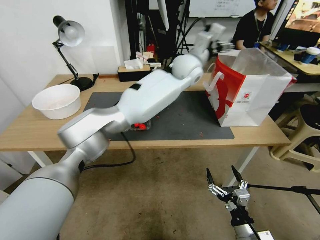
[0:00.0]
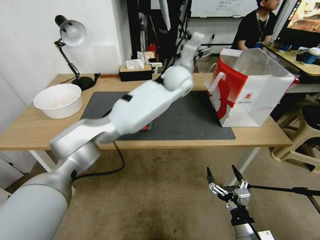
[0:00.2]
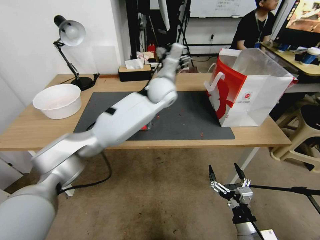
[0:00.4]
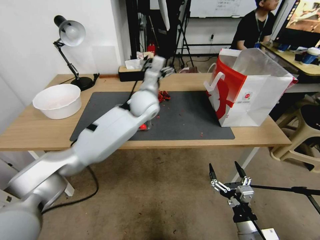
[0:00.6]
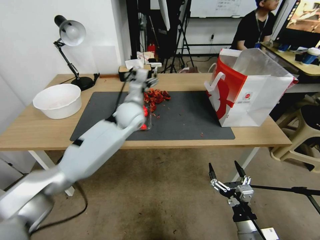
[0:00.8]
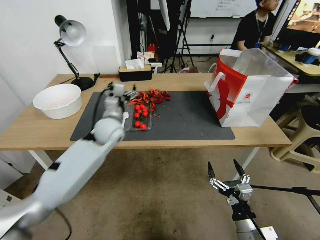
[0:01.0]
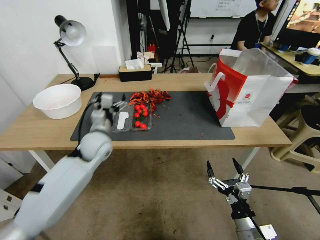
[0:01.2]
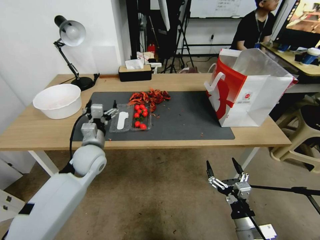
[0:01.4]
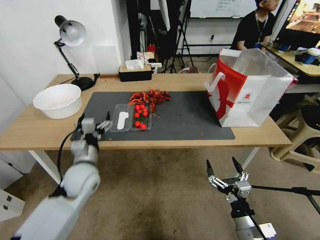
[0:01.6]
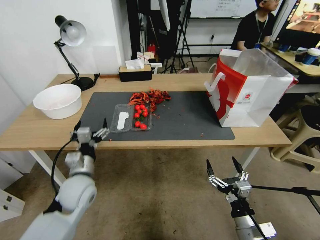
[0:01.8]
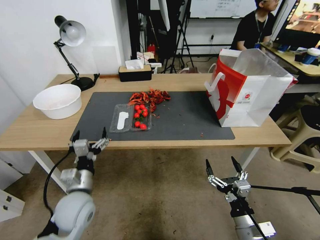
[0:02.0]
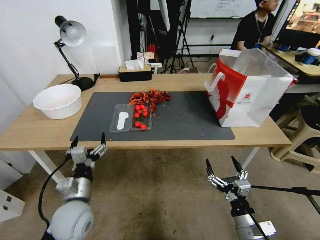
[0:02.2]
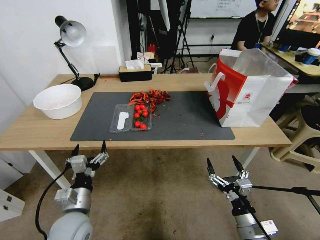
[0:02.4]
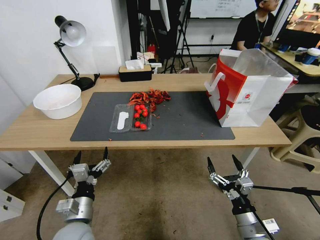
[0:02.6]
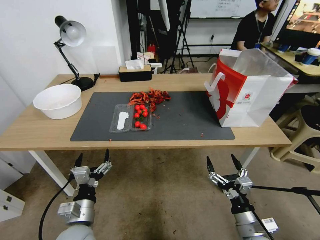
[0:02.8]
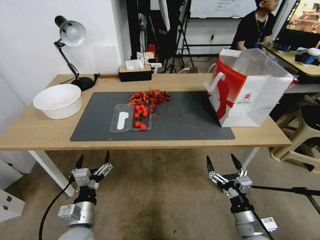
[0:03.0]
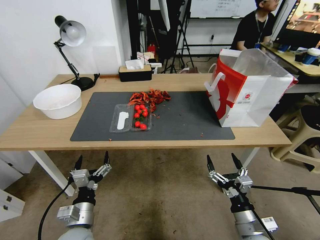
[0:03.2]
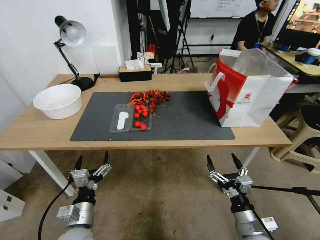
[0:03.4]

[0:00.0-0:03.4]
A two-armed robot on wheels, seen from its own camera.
0.0 to 1.6 s: The left gripper heads to the left, backward and downward, covering some 50 cm.
1.6 to 3.4 s: The left gripper is displaced backward and downward by about 20 cm.

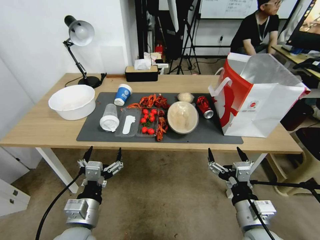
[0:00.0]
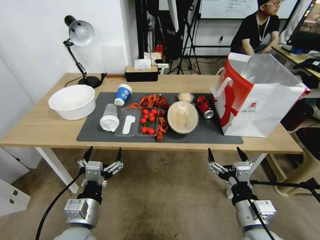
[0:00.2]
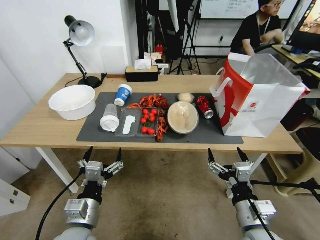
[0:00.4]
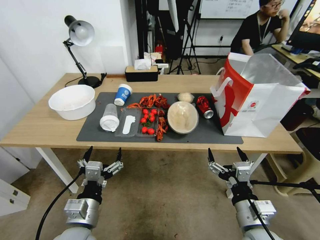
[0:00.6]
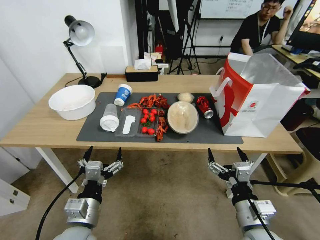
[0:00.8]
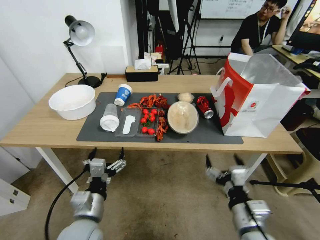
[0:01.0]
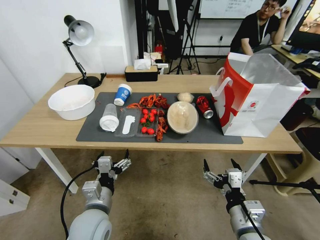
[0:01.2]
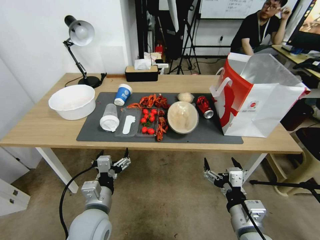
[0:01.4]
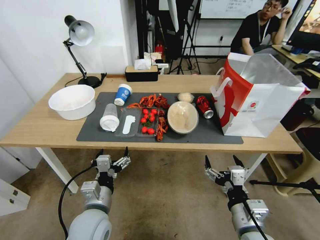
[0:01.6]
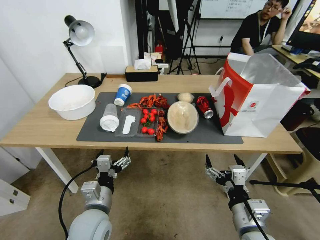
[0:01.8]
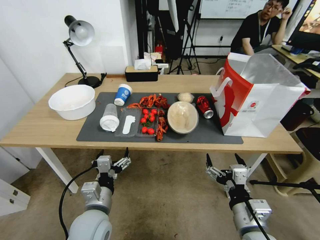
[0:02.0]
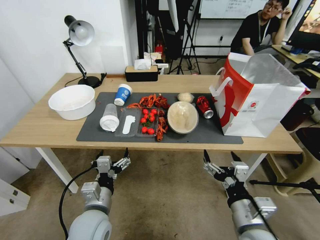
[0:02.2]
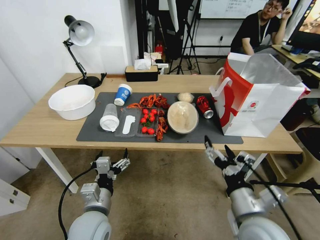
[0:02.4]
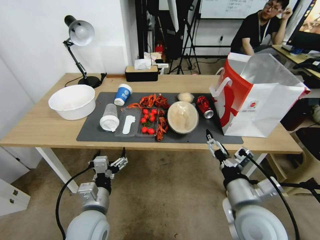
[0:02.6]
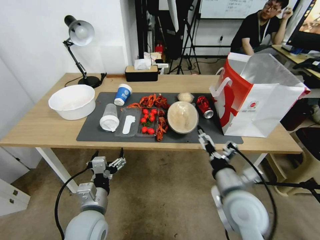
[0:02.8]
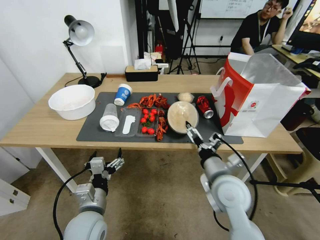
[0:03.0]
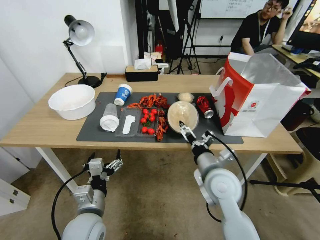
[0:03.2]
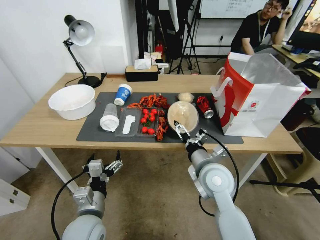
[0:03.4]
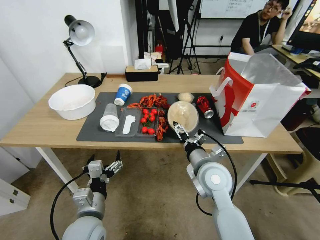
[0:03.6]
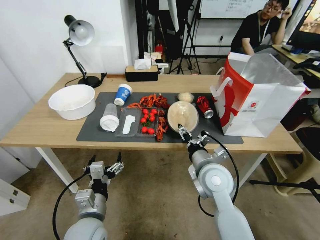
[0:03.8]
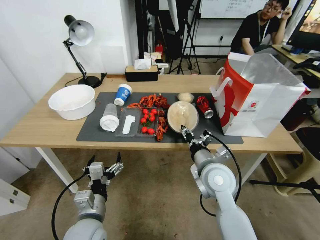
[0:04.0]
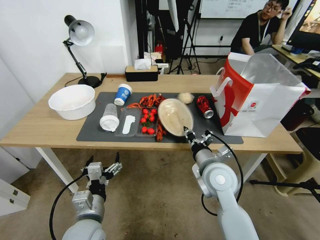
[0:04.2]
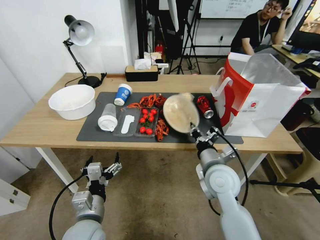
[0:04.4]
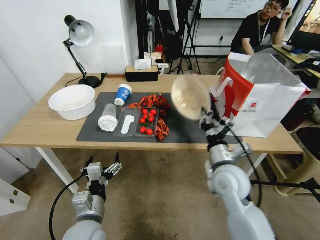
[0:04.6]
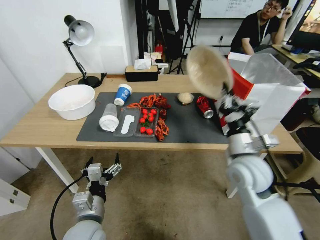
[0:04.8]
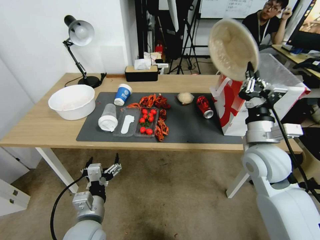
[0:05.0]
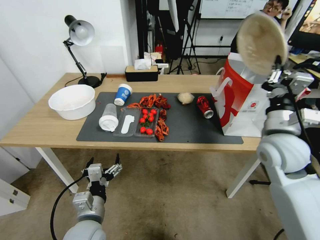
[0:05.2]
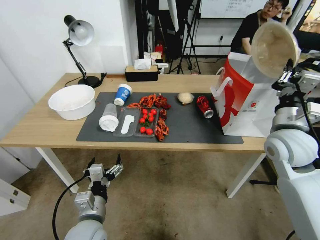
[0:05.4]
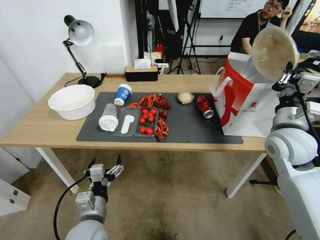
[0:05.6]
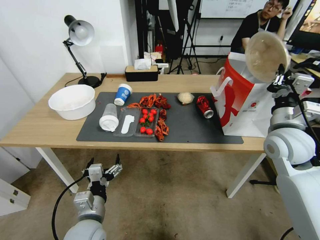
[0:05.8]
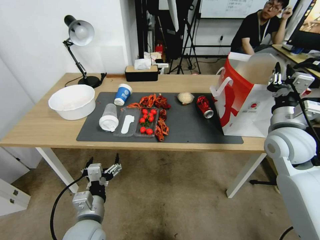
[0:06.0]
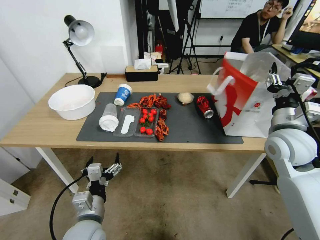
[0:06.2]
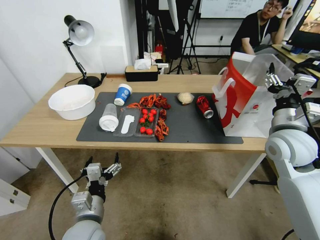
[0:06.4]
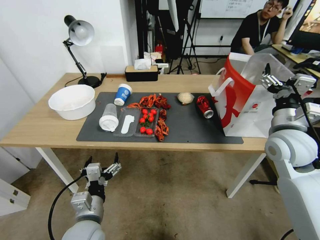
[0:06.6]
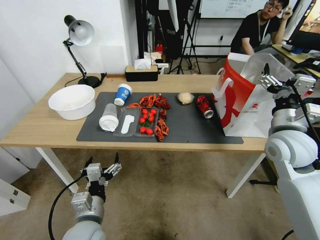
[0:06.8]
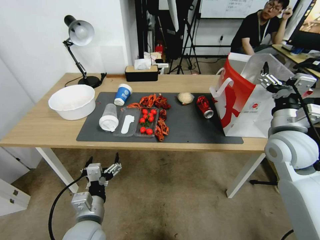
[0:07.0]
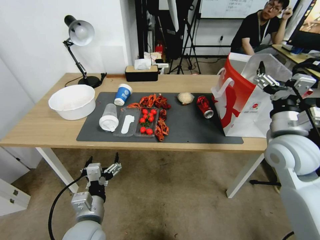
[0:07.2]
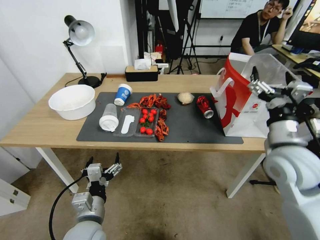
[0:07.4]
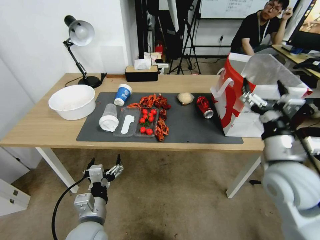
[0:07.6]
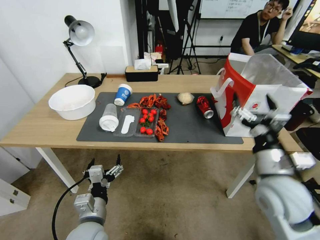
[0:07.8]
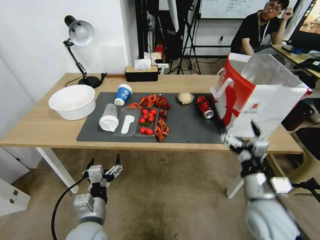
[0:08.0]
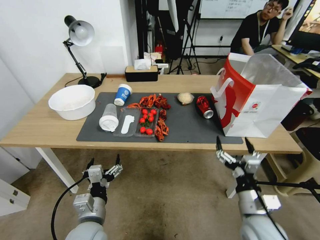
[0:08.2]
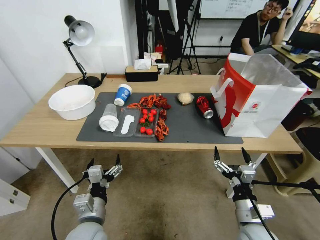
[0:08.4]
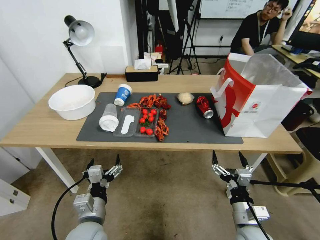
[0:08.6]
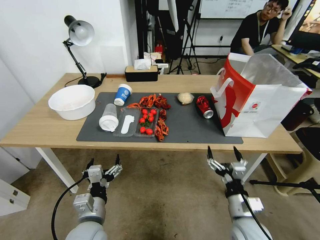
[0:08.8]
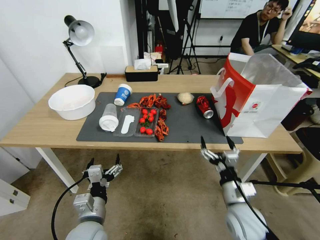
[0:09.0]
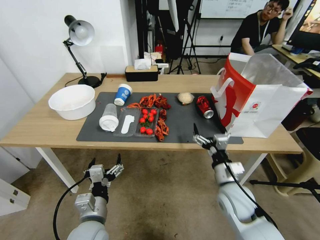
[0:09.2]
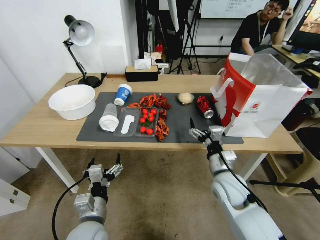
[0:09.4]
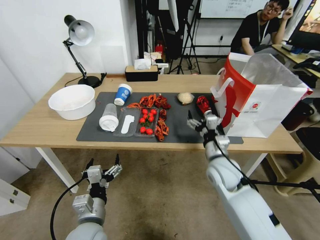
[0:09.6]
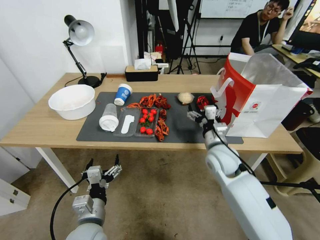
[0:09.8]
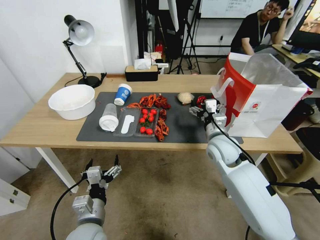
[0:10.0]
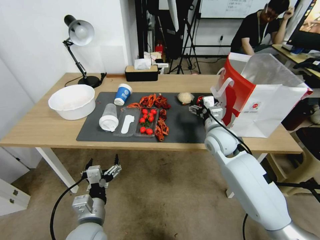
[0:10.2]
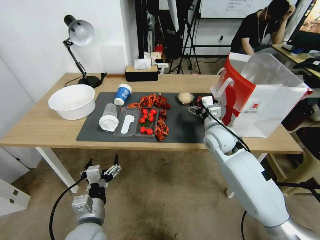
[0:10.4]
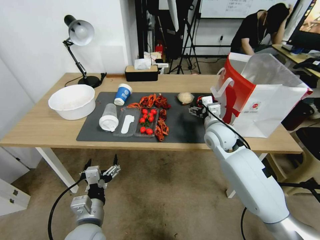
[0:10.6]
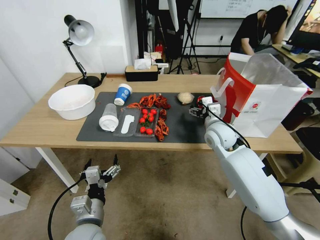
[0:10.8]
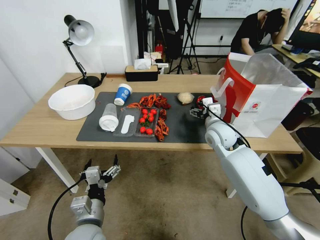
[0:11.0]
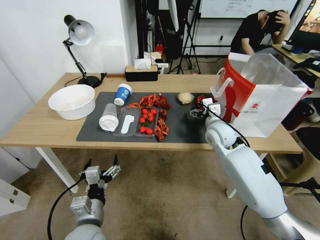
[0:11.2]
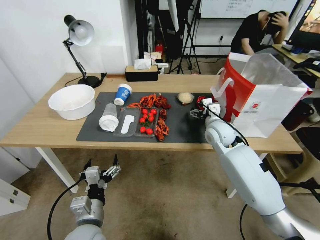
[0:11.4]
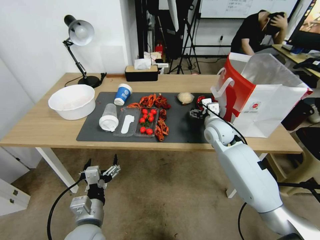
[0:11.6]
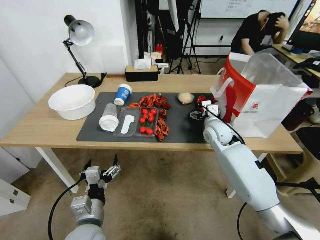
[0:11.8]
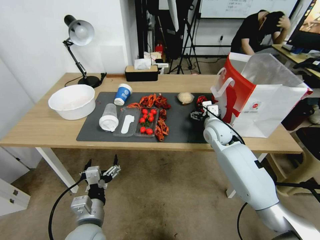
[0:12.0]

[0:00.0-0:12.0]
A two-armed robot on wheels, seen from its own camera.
1.6 to 3.0 s: The right gripper moves forward, approximately 10 cm.
3.0 to 4.4 s: The right gripper closes up.
4.4 to 6.0 s: The right gripper goes roughly 20 cm to the right and upward.
6.0 to 7.6 s: The right gripper shifts some 5 cm backward, and opens its fingers.
7.6 to 9.0 s: The right gripper heads downward, covering some 20 cm.
9.0 to 10.4 s: The right gripper moves forward and upward, roughly 25 cm.
10.4 to 12.0 s: The right gripper moves forward, approximately 5 cm.

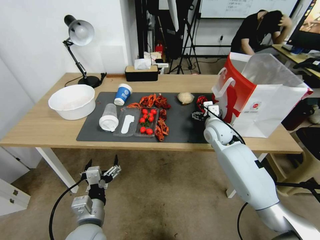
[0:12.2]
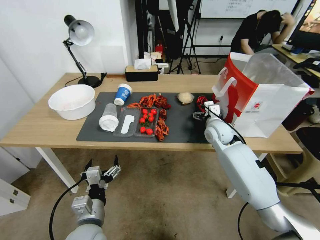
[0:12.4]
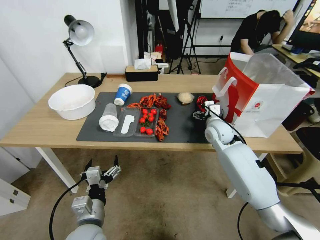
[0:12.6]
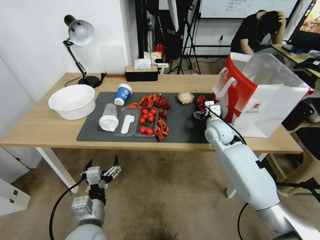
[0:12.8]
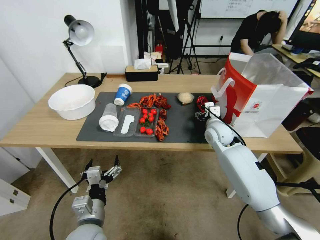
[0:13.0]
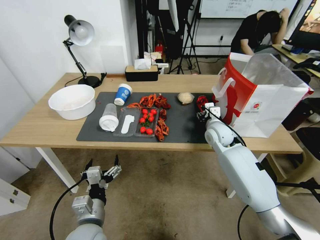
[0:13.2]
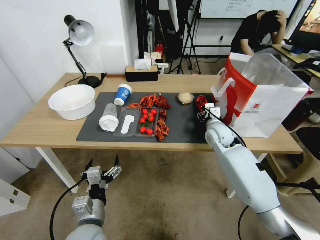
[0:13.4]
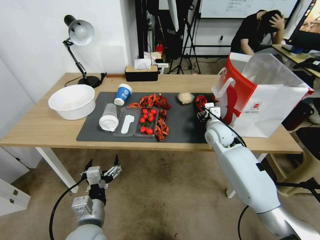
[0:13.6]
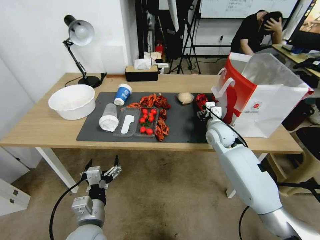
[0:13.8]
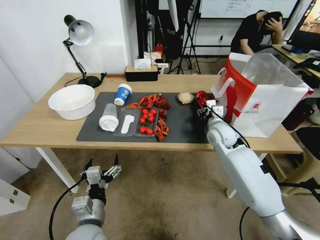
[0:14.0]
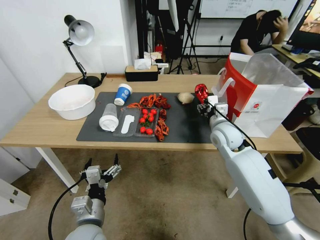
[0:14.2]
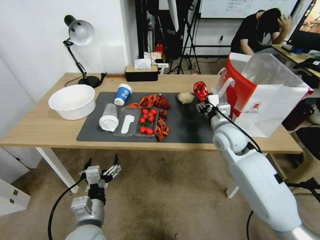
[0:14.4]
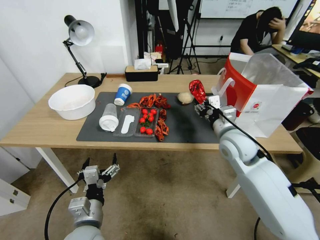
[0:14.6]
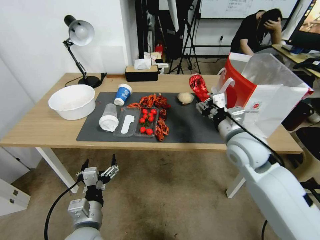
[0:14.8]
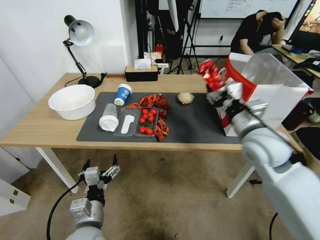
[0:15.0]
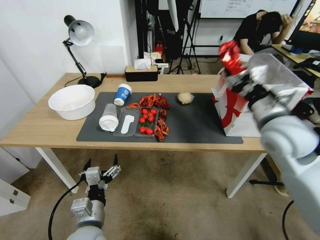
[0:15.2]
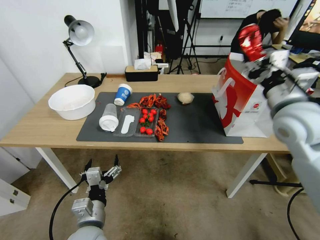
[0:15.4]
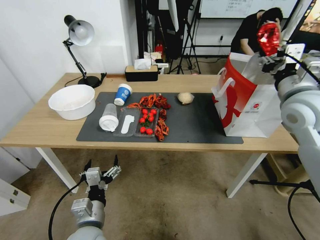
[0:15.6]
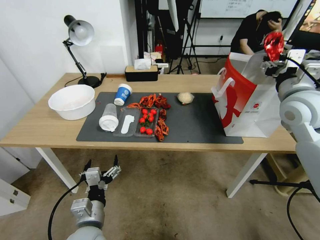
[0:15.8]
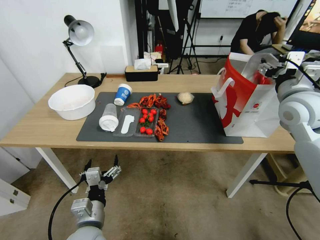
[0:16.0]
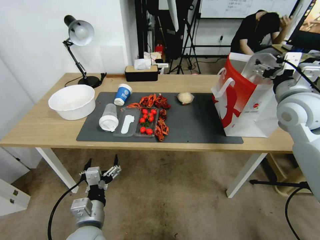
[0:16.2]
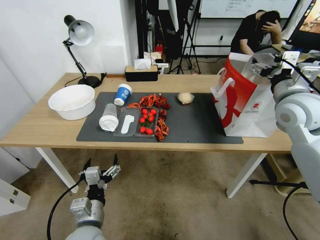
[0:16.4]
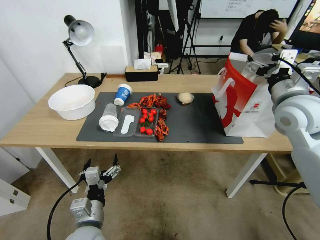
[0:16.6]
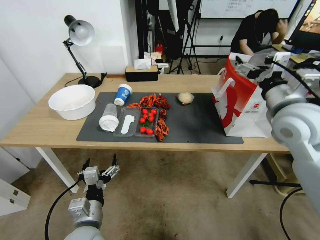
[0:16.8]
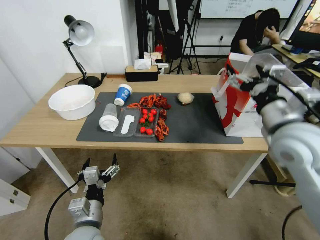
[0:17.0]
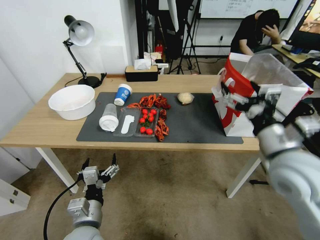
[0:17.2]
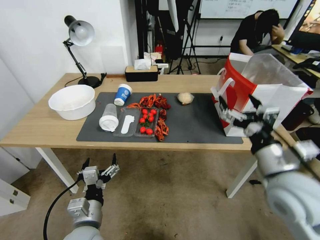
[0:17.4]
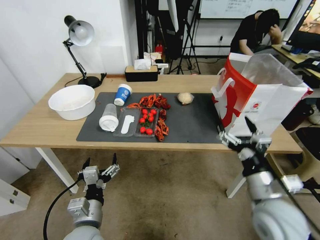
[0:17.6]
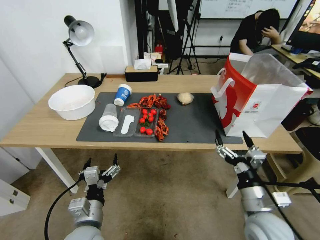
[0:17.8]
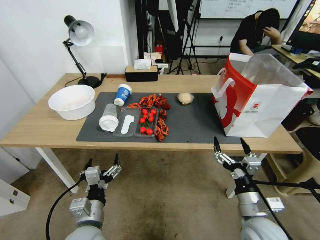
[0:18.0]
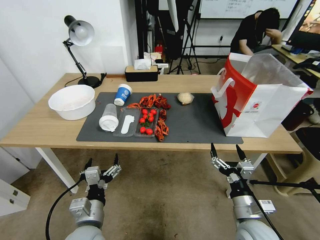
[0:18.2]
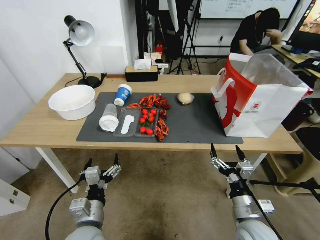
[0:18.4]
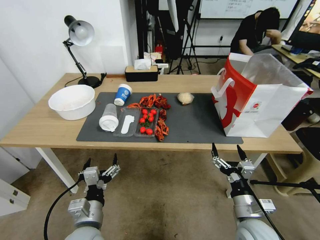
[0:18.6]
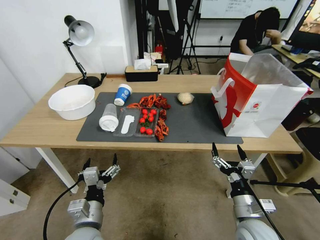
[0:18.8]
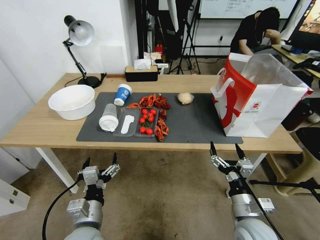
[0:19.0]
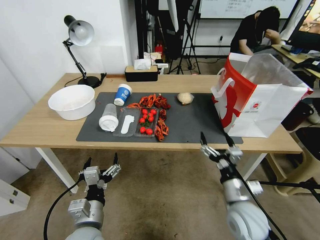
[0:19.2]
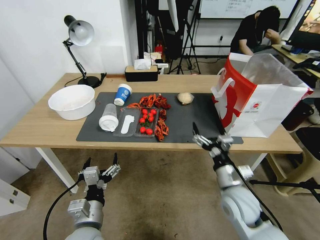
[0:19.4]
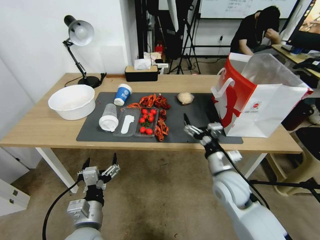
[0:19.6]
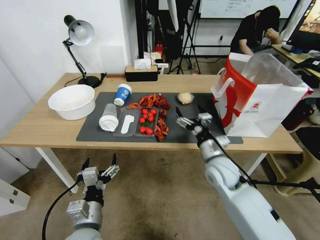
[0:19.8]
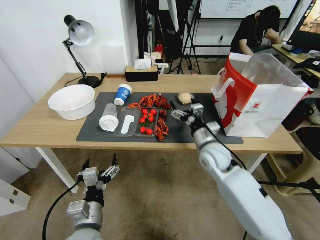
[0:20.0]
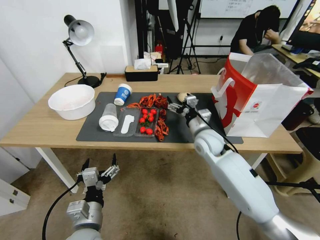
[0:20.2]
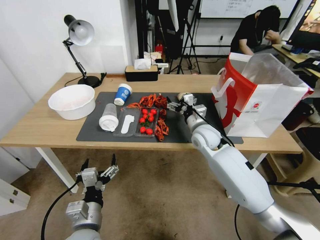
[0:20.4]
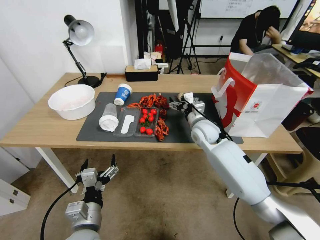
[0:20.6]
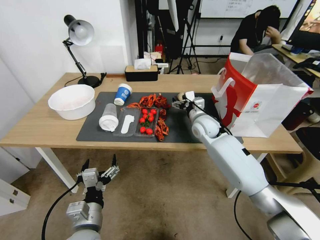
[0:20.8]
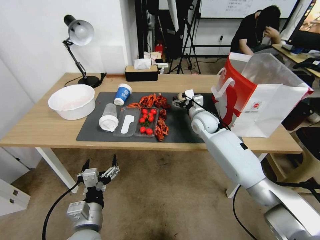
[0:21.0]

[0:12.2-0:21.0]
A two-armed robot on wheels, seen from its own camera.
12.2 to 13.6 s: The right gripper closes its fingers.
13.6 to 15.2 s: The right gripper shifts some 20 cm upward and backward.
15.2 to 16.6 s: The right gripper moves about 5 cm, and opens up.
16.6 to 18.0 s: The right gripper heads downward and backward, covering about 30 cm.
18.0 to 19.6 s: The right gripper moves forward and to the left, roughly 15 cm.
19.6 to 21.0 s: The right gripper goes approximately 25 cm forward.
